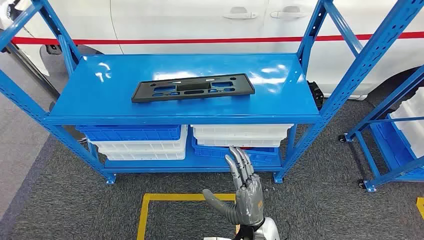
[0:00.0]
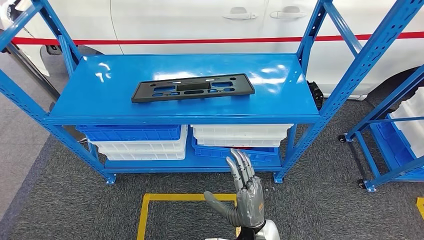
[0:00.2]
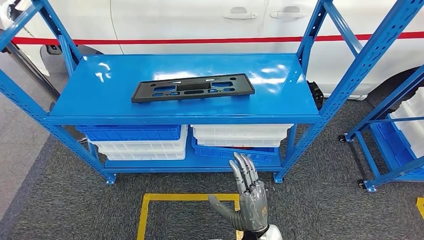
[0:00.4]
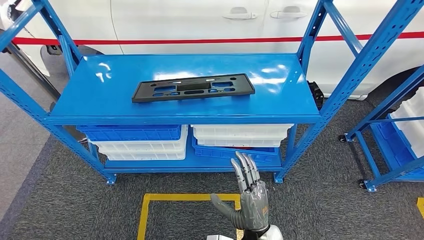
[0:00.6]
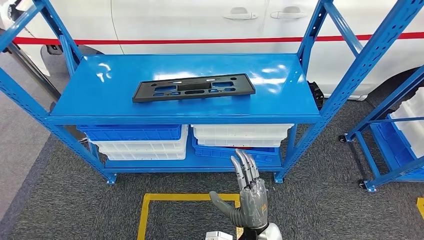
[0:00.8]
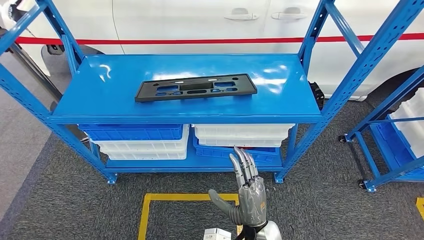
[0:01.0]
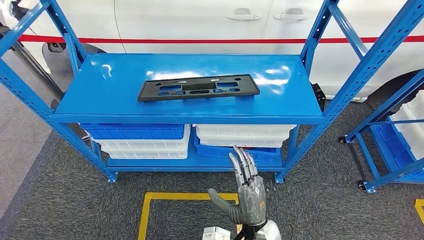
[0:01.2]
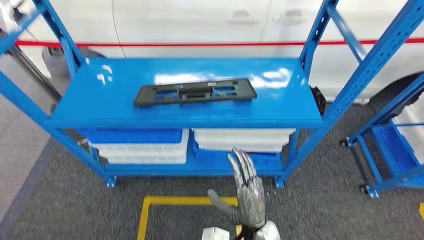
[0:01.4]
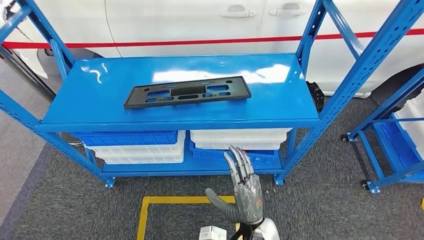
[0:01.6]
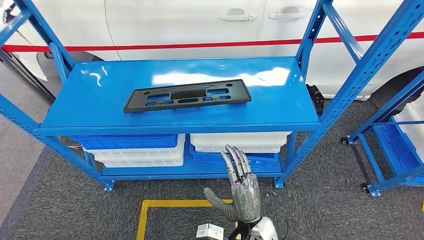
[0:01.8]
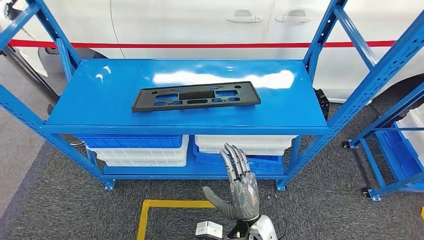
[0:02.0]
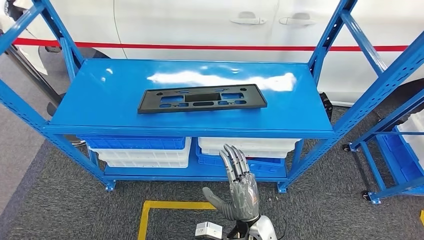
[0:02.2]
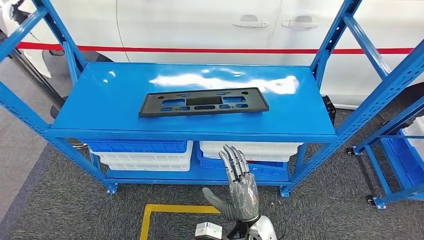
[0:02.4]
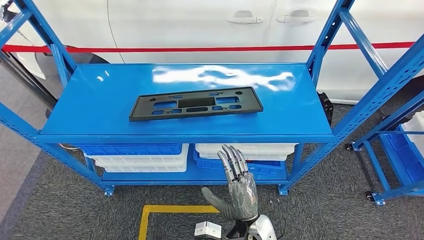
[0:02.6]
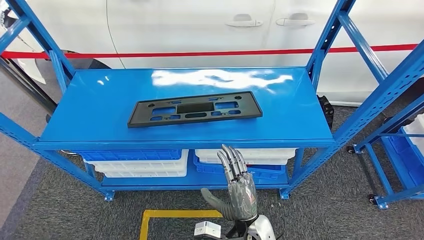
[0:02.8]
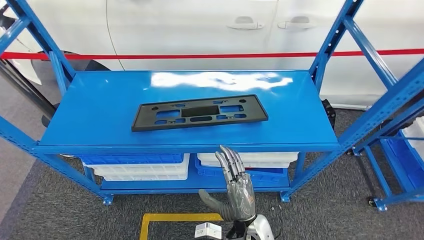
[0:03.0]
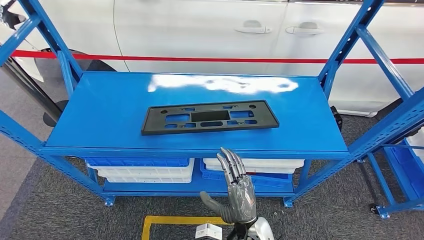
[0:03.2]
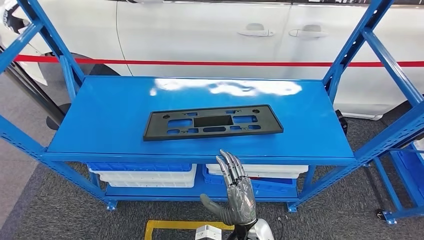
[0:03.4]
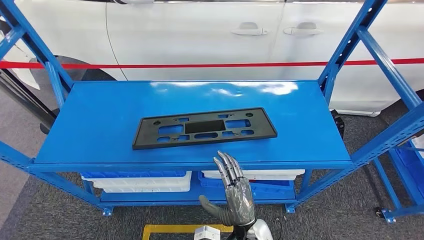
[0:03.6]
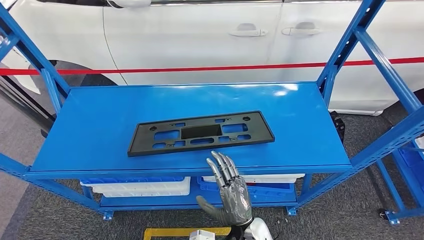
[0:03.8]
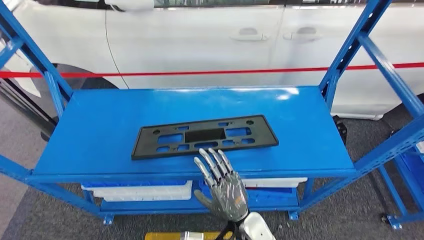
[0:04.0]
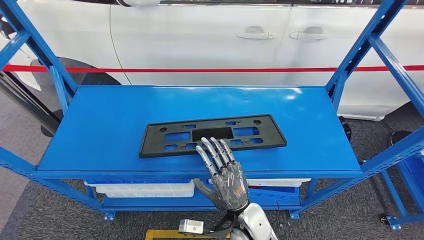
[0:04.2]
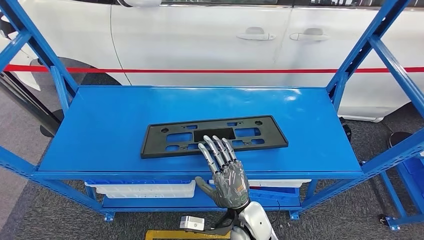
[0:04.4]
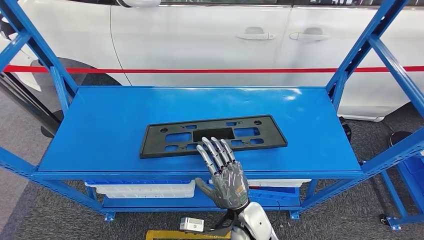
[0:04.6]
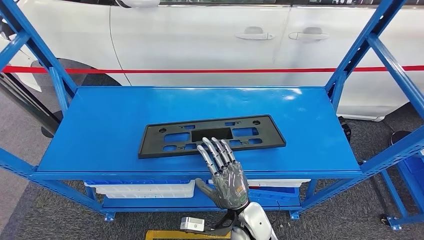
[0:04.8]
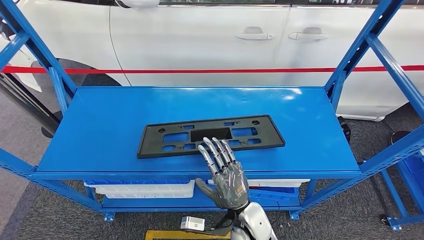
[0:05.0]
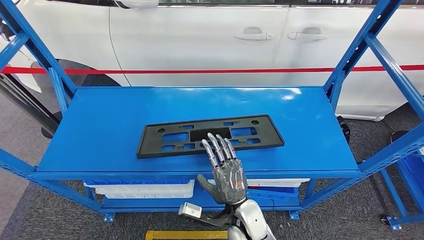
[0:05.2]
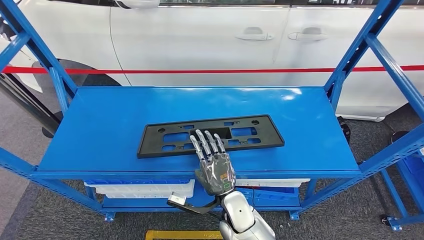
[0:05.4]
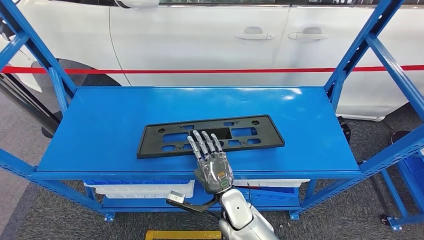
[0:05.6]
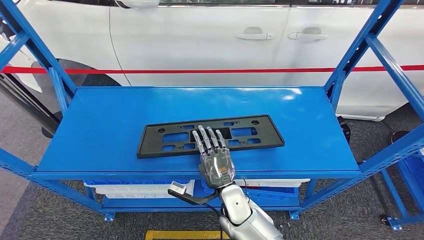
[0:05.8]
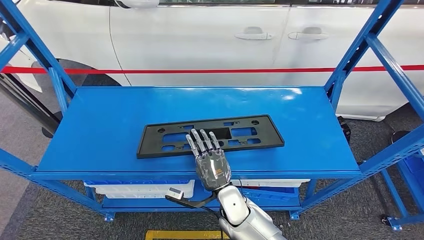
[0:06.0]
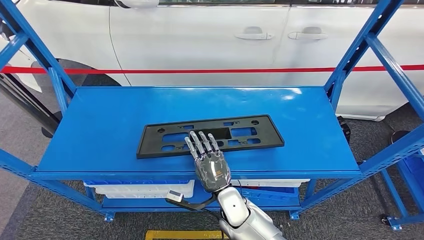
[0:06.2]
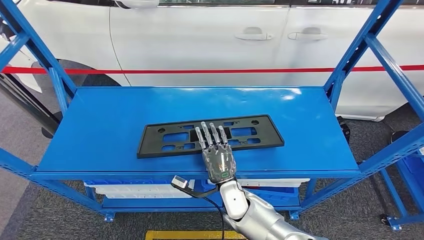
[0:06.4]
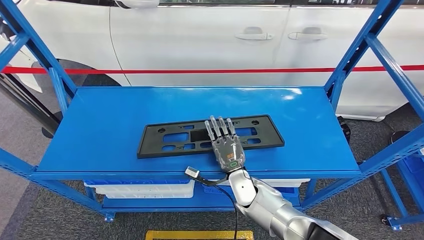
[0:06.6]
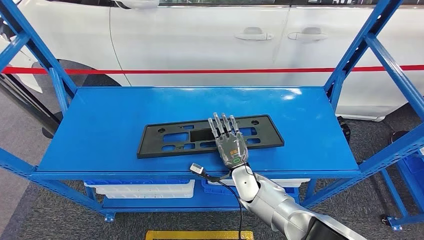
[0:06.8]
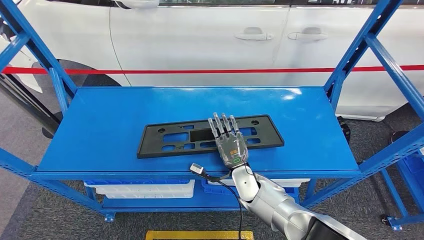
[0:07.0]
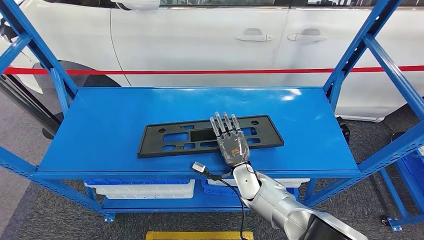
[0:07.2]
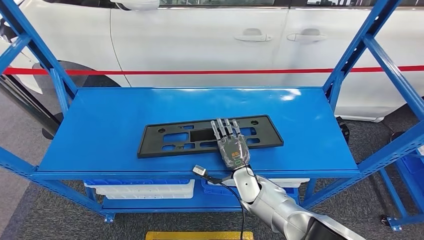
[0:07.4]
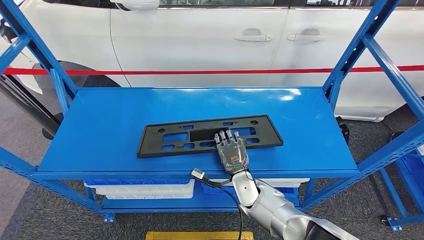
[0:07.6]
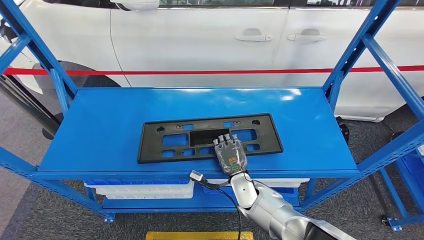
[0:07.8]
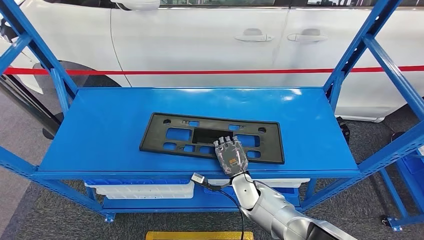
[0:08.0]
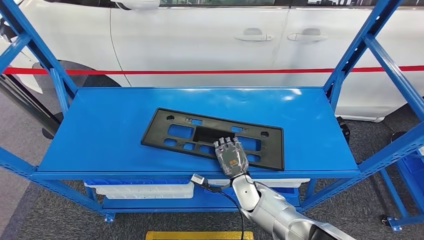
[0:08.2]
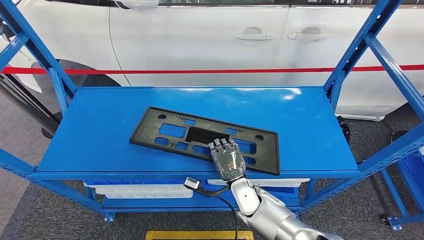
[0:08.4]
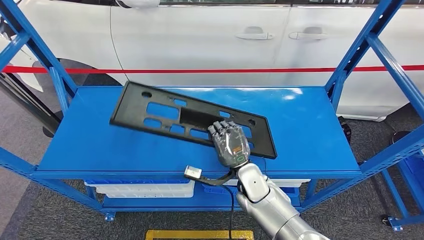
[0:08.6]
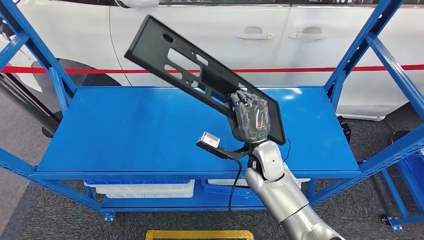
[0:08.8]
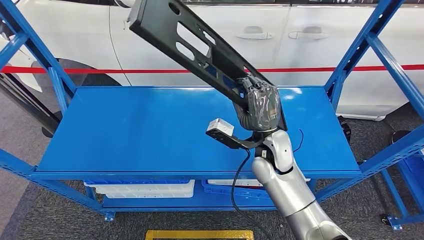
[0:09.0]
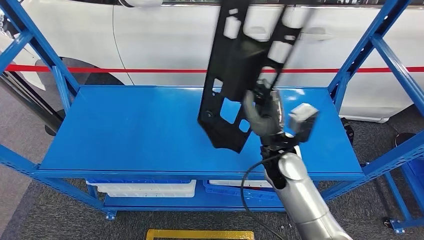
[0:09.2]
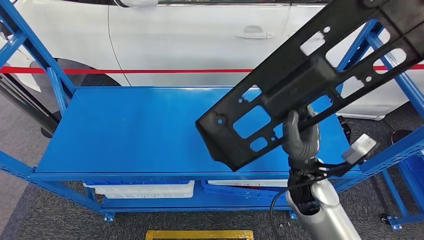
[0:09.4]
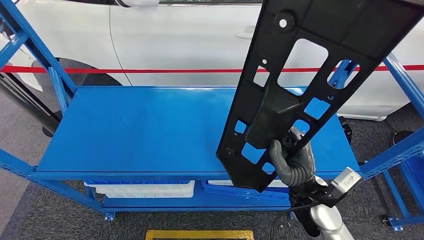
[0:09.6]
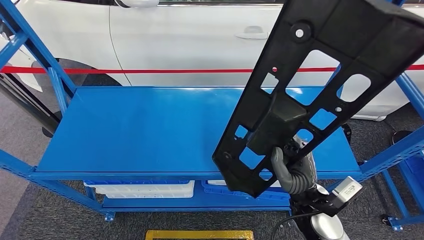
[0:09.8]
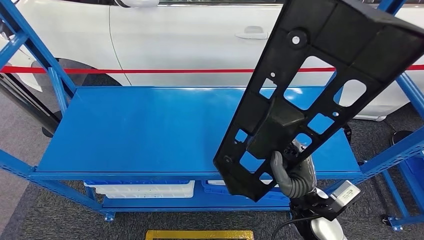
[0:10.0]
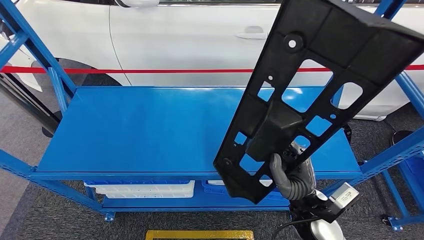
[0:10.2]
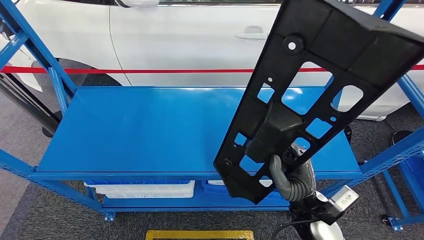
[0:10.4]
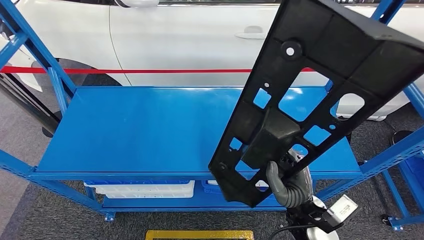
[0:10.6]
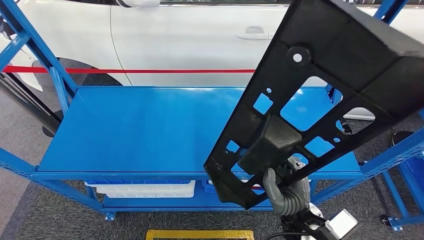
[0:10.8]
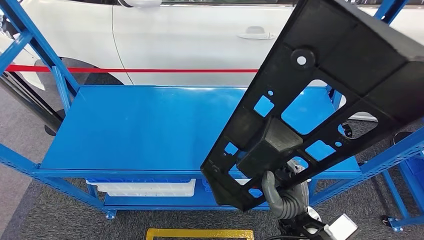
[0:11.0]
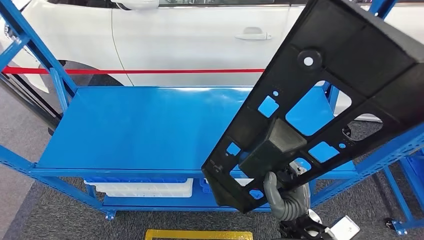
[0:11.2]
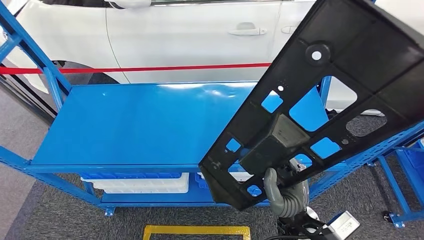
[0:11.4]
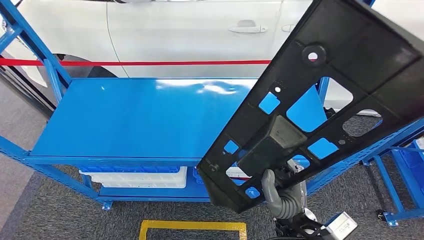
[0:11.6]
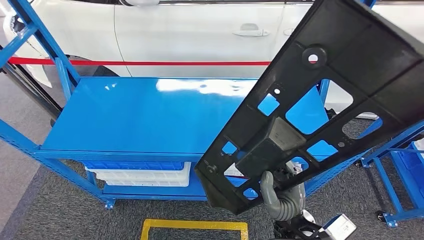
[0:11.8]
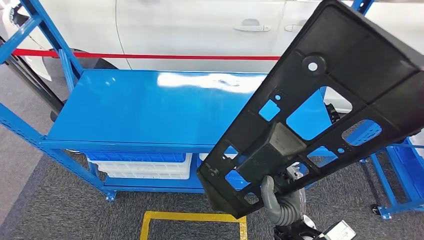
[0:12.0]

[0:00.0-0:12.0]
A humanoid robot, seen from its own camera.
0:04.4 to 0:06.0: The right hand changes place by approximately 5 cm.
0:06.0 to 0:07.6: The right hand heads to the right and forward, covering roughly 10 cm.

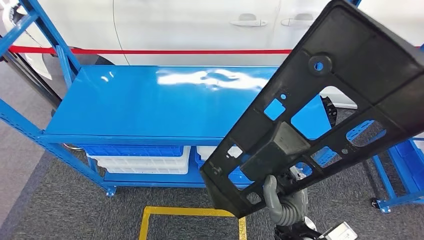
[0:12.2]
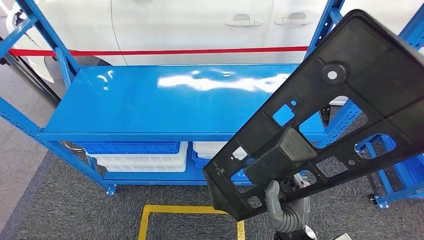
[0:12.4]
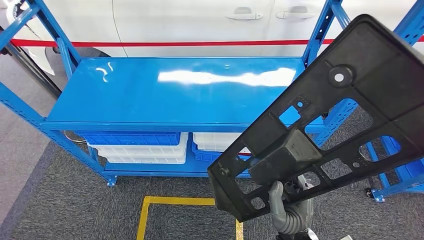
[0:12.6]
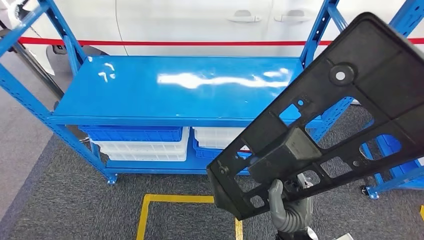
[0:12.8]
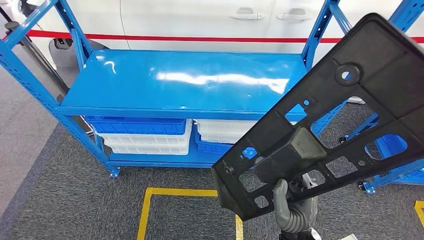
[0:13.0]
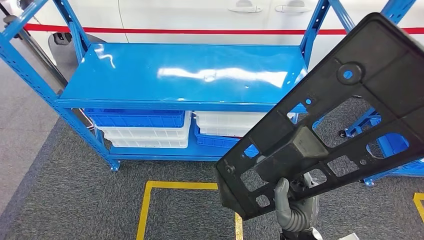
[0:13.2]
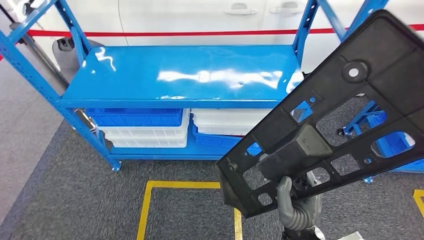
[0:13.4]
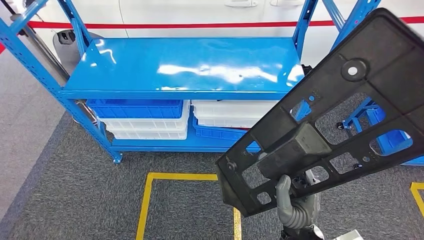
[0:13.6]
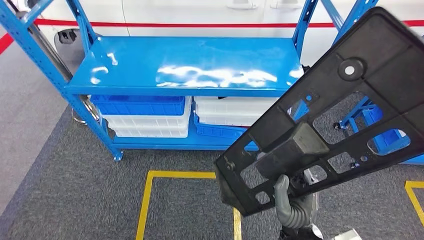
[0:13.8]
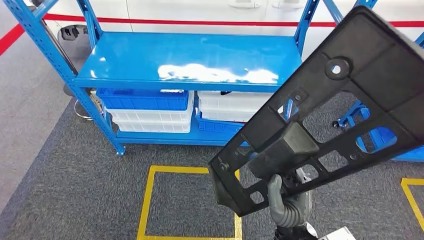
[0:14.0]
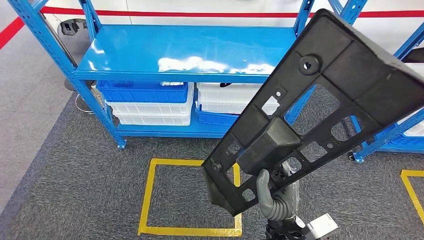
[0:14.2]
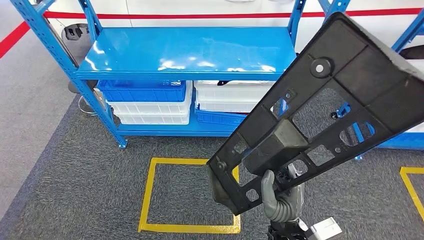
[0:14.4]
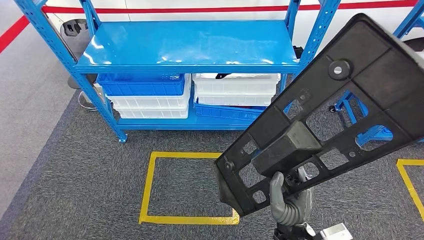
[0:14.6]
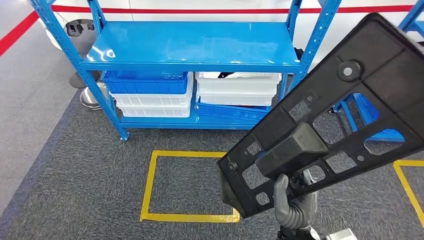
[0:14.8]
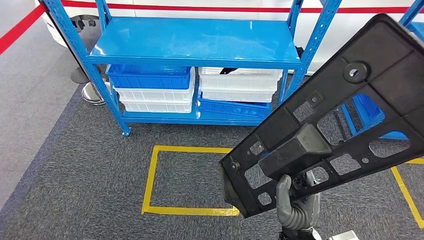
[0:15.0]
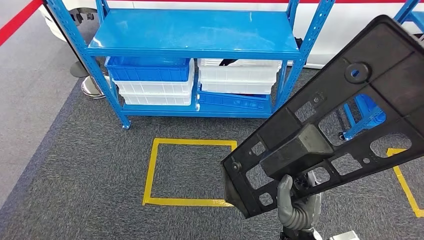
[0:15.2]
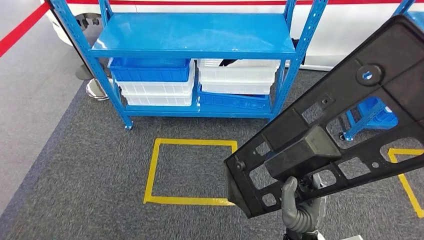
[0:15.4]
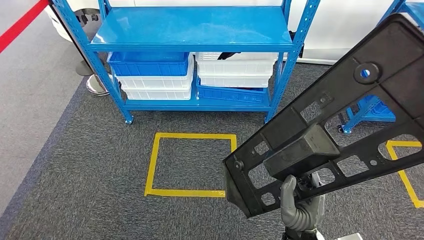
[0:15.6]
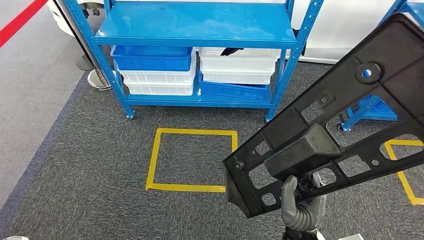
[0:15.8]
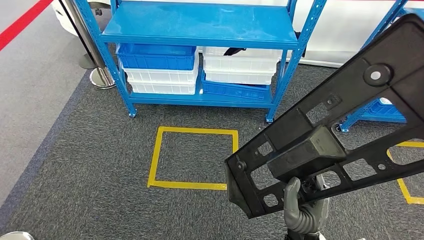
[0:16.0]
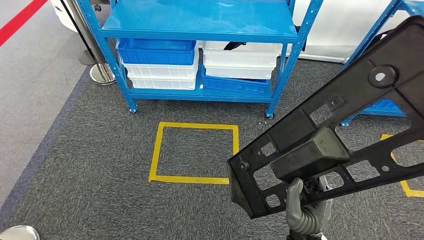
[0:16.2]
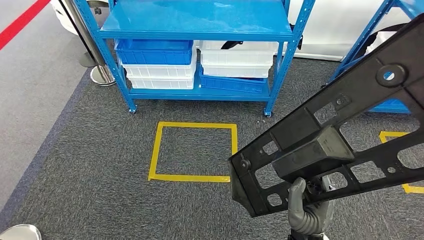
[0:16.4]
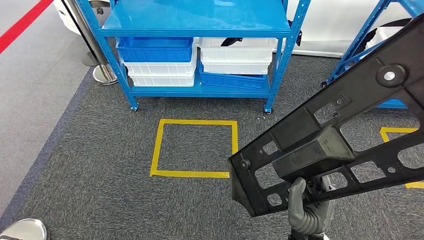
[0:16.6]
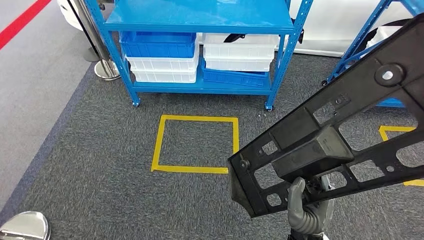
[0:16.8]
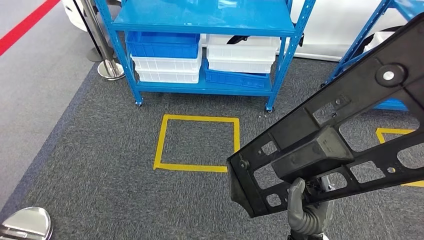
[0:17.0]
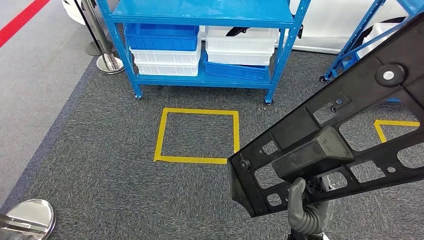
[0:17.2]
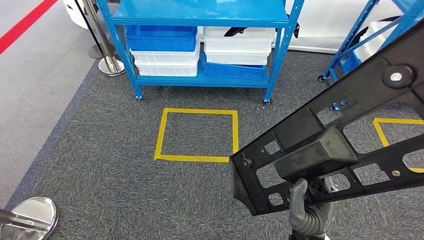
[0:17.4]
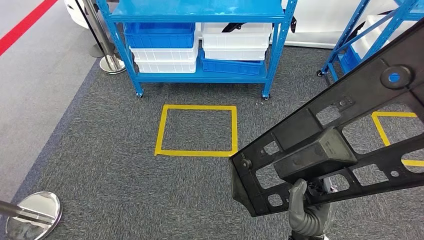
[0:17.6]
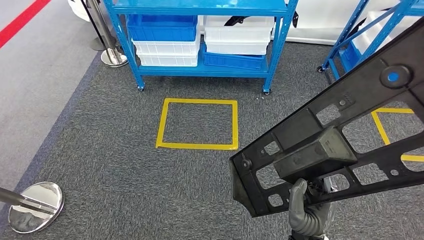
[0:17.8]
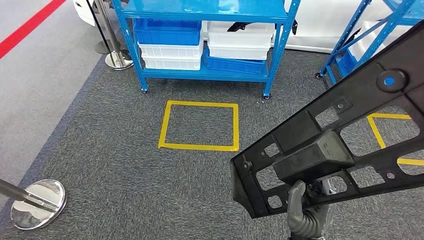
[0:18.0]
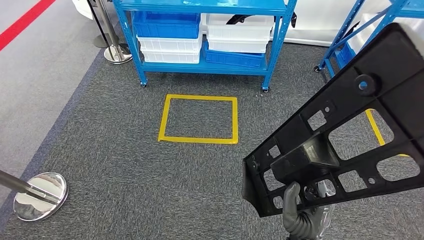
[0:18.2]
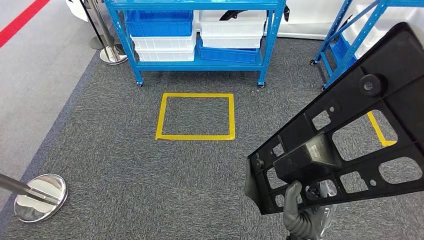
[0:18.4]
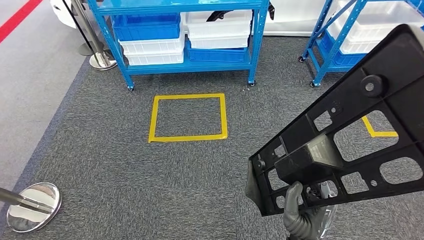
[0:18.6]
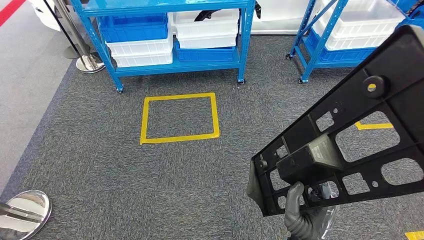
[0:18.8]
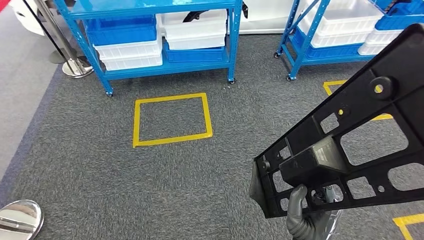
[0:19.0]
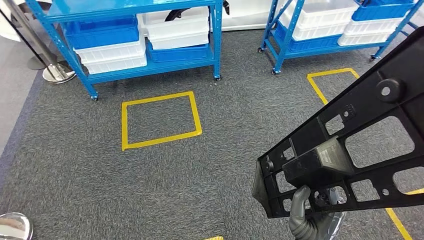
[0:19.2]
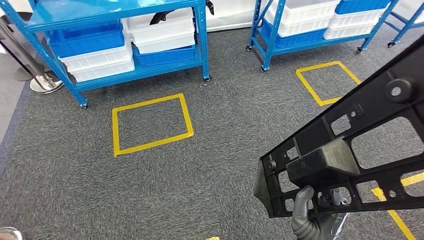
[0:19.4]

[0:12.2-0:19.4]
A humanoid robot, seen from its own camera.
Step, 0:12.2 to 0:15.0: Pick up the large material from the shelf.
